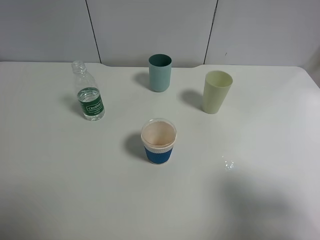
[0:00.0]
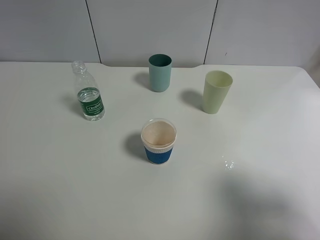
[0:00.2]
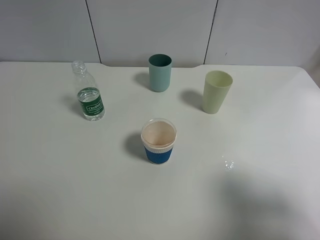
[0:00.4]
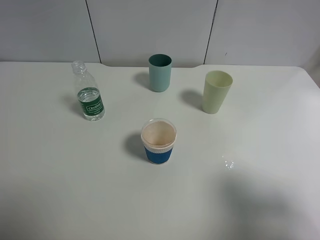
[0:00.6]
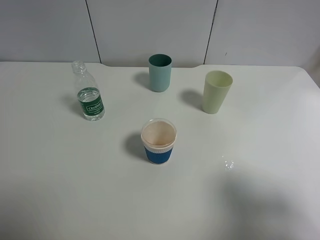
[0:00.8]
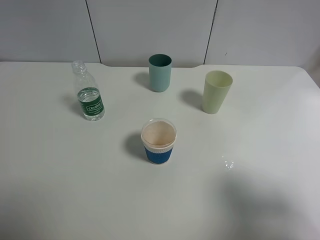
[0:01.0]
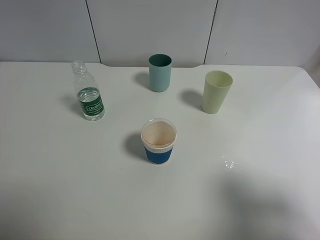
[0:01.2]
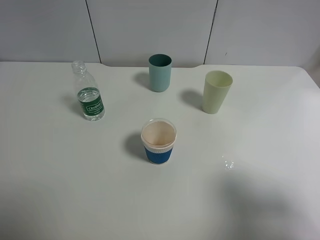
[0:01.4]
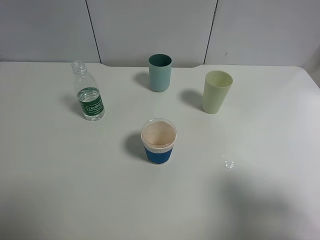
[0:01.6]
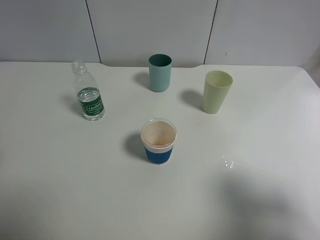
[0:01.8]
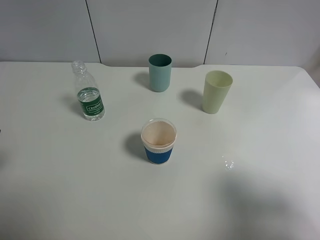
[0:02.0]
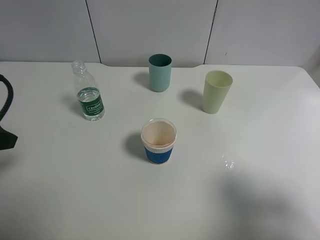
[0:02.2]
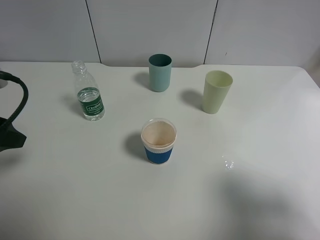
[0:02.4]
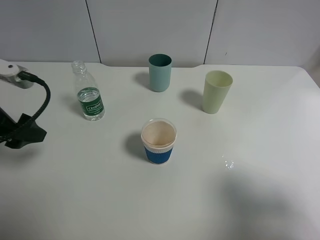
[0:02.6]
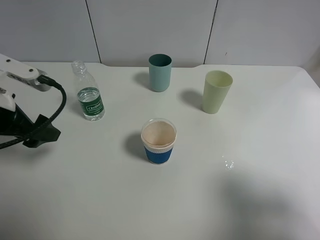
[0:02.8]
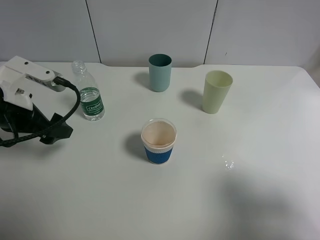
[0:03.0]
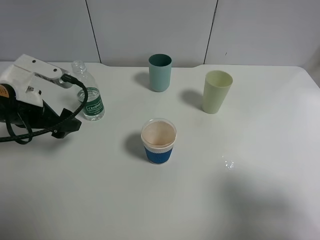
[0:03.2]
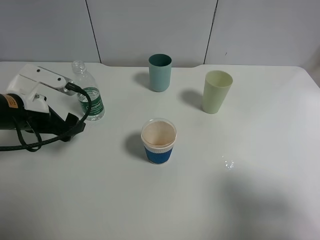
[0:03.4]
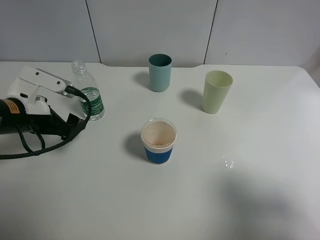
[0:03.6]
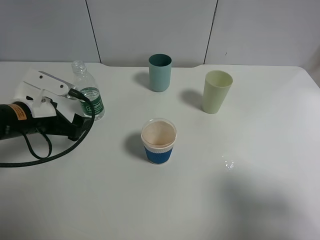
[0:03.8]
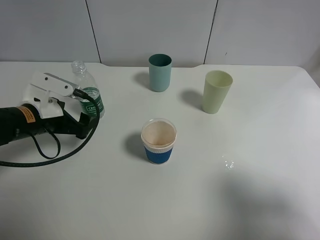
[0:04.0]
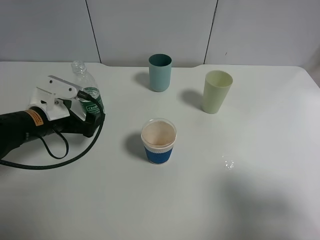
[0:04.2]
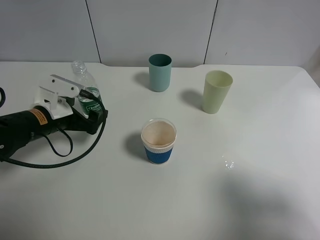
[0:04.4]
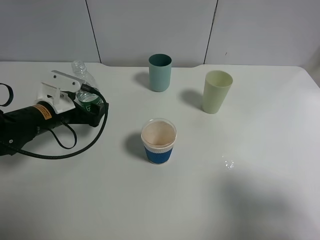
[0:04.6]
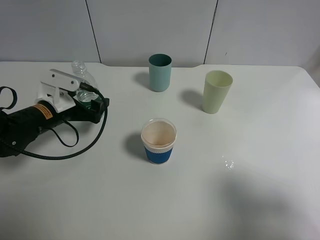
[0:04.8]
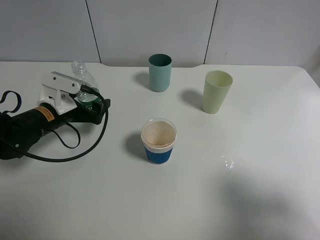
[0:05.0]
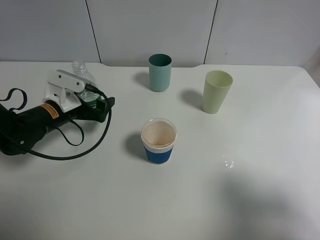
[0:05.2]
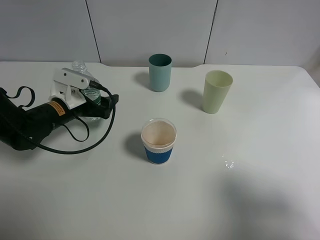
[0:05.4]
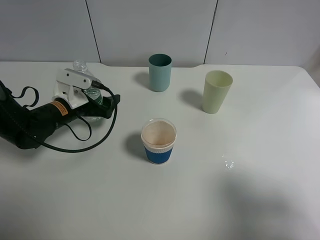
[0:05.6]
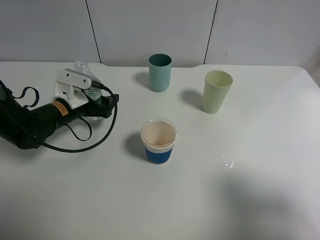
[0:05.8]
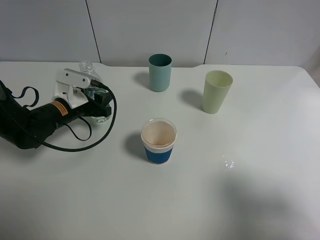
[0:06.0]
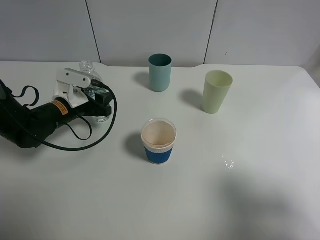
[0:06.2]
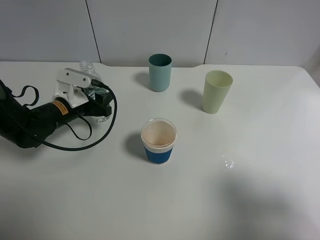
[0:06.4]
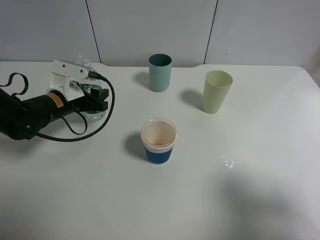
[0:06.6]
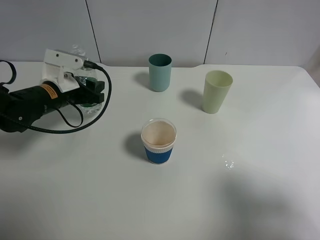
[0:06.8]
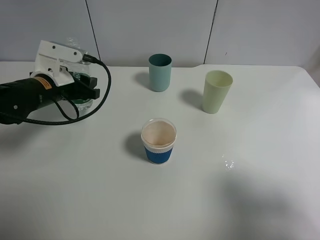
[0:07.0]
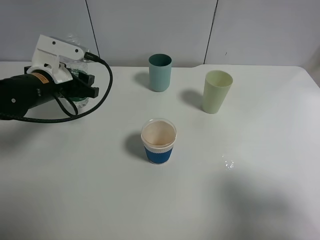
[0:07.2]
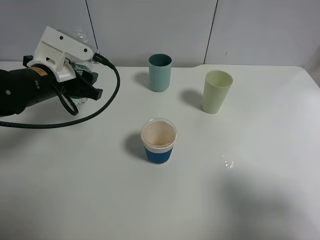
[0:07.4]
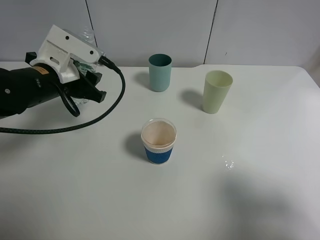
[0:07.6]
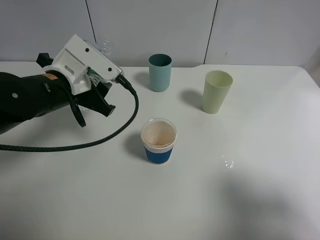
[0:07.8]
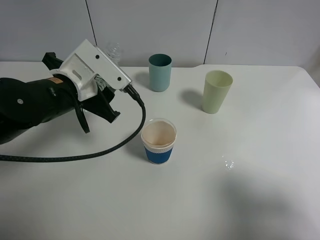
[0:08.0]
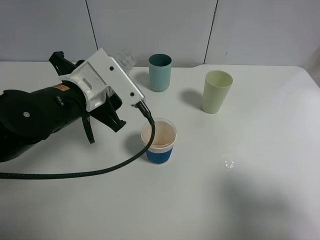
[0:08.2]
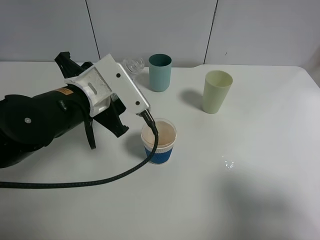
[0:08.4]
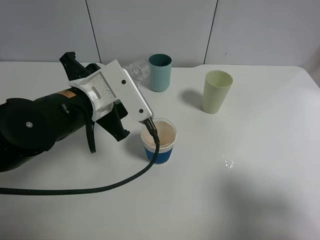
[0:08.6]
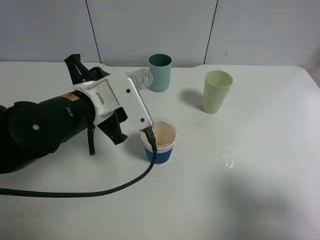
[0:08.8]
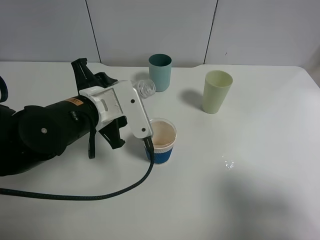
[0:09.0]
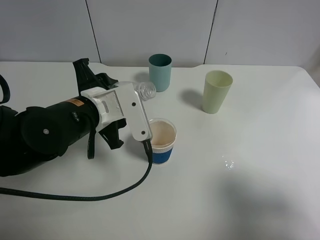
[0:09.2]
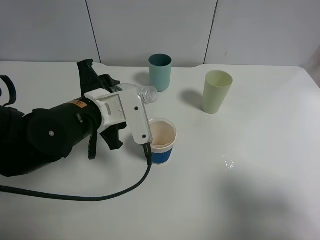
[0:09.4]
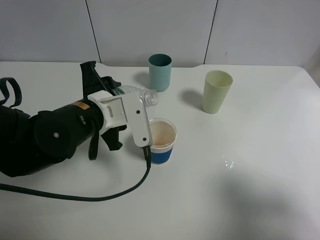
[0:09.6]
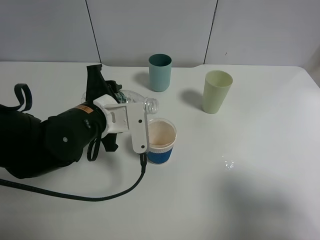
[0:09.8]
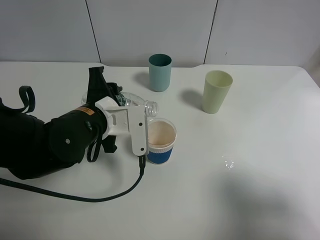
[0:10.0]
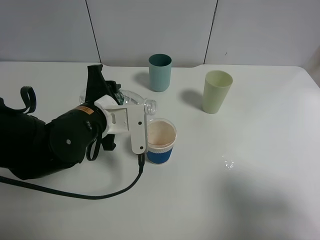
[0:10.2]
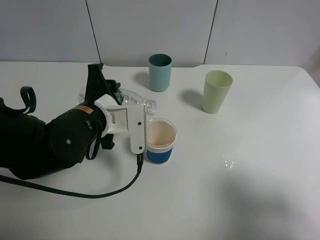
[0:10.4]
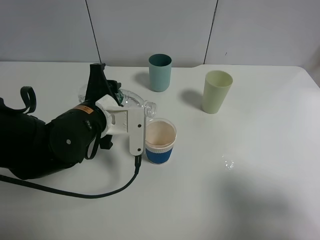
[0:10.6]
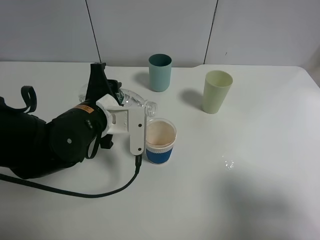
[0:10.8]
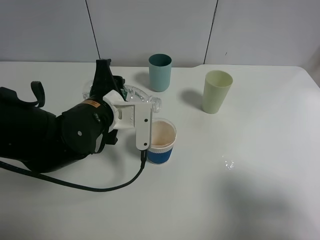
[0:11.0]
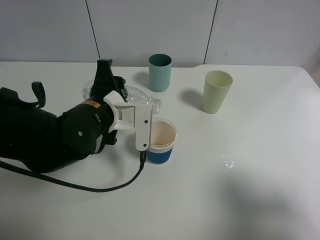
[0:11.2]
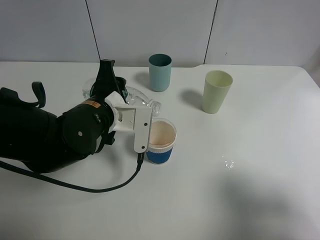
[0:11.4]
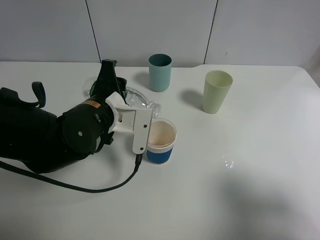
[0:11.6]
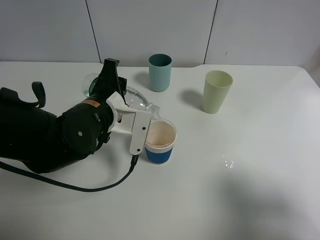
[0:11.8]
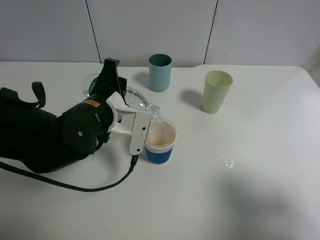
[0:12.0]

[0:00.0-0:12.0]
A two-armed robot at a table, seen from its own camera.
Task of the whole recording: use a clamp to hold the bottle of the drink, pour the beverage into a random cup, then clamp the cup containing the drink and pour the drink into another random cup.
Step, 0:00.0 to 0:06.4: Pick up the water bottle with left gripper.
0:01.6 to 0:03.0: The left gripper shifts approximately 20 cm forward and downward.
0:03.0 to 0:04.4: The left gripper goes some 10 cm downward.
0:04.4 to 0:06.0: The left gripper goes roughly 5 cm forward.
0:06.0 to 0:07.6: The left gripper shifts approximately 10 cm upward, and closes its fingers.
0:07.6 to 0:09.0: The left gripper moves to the right and backward, about 10 cm.
0:10.4 to 0:12.0: The grippers move only a little.

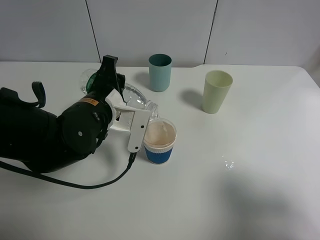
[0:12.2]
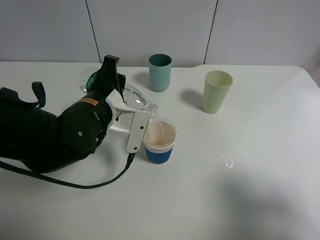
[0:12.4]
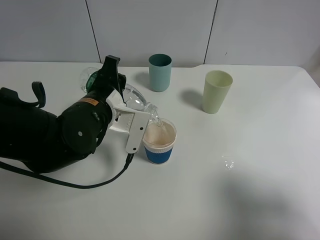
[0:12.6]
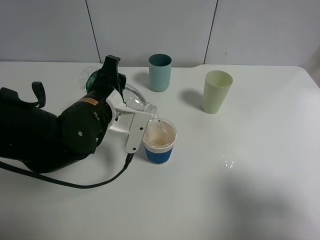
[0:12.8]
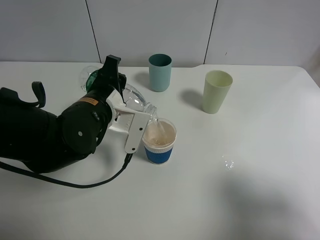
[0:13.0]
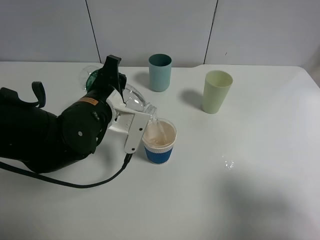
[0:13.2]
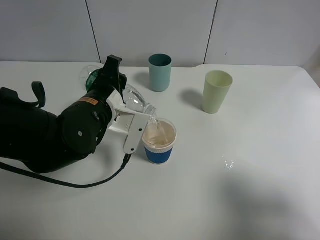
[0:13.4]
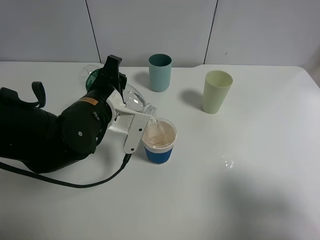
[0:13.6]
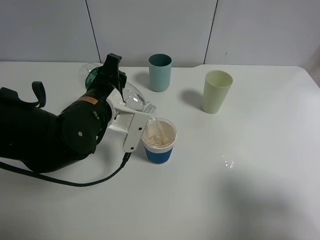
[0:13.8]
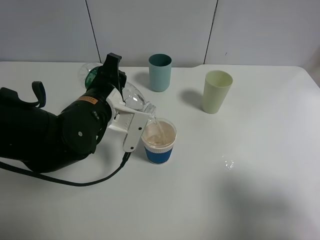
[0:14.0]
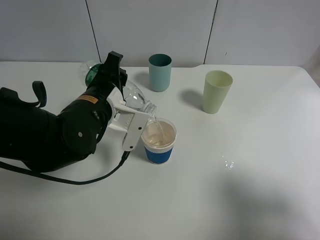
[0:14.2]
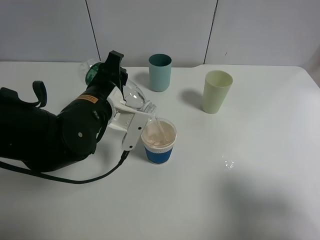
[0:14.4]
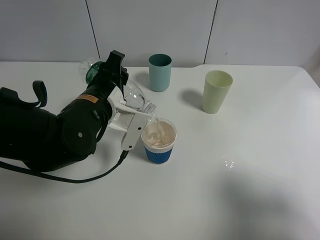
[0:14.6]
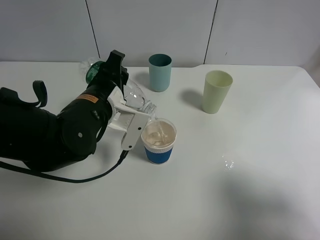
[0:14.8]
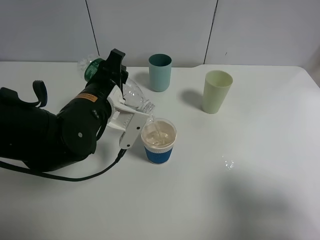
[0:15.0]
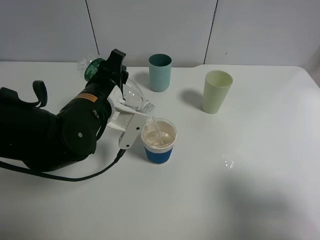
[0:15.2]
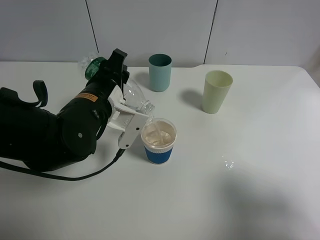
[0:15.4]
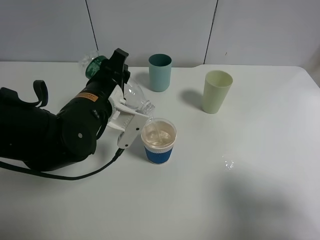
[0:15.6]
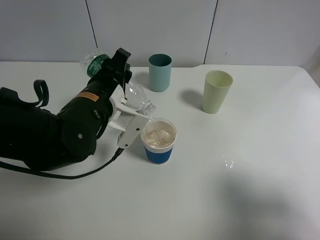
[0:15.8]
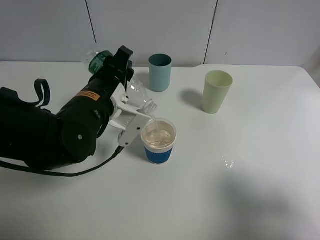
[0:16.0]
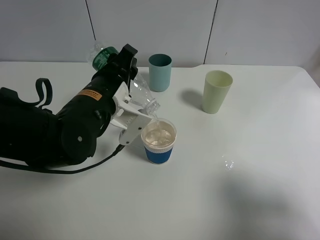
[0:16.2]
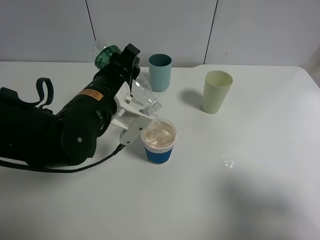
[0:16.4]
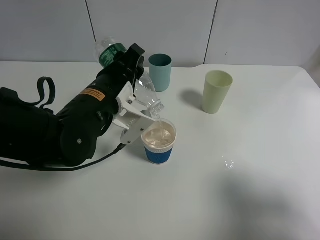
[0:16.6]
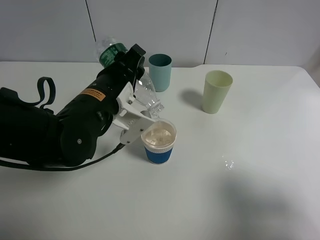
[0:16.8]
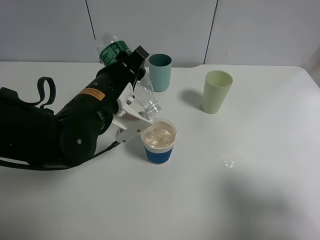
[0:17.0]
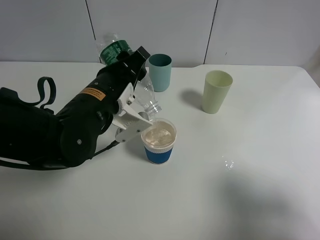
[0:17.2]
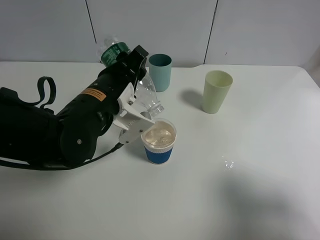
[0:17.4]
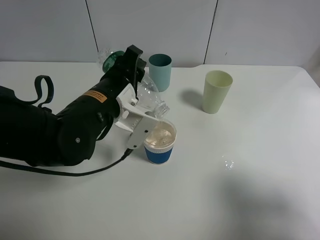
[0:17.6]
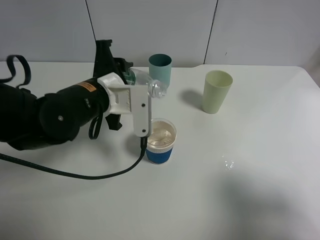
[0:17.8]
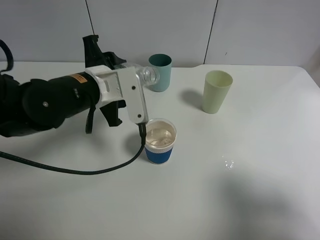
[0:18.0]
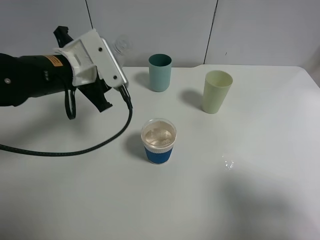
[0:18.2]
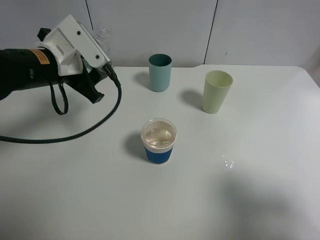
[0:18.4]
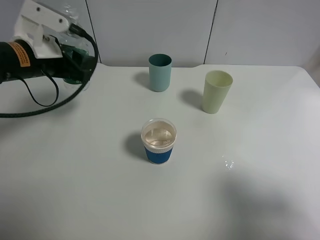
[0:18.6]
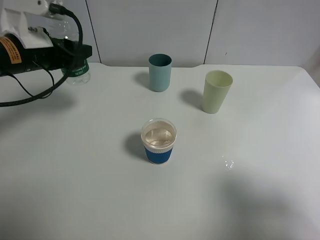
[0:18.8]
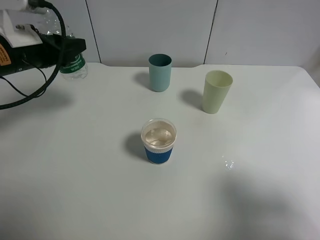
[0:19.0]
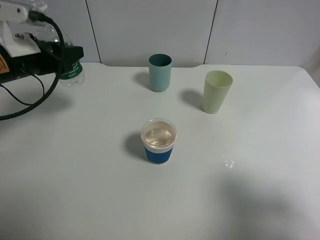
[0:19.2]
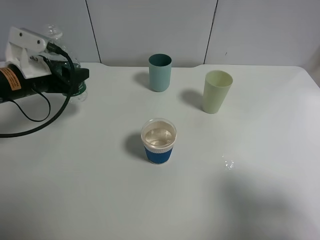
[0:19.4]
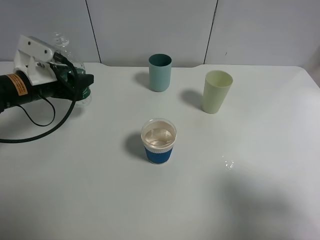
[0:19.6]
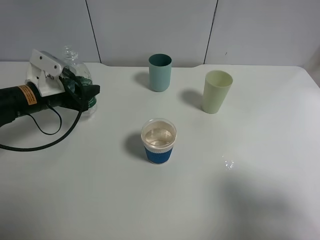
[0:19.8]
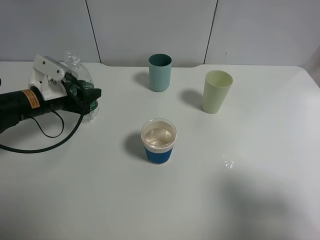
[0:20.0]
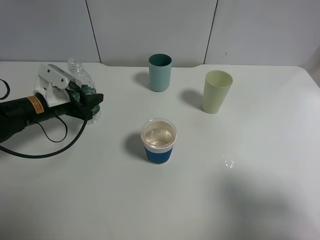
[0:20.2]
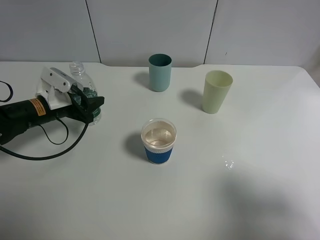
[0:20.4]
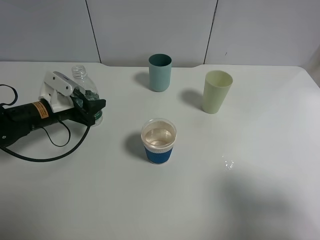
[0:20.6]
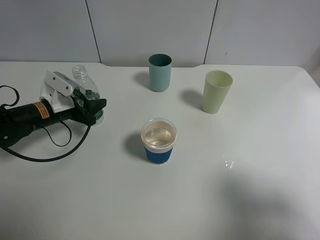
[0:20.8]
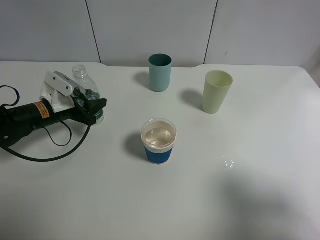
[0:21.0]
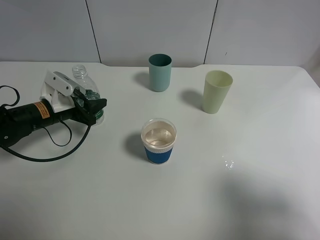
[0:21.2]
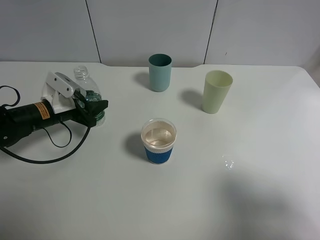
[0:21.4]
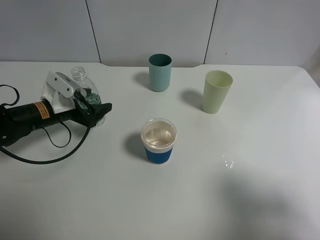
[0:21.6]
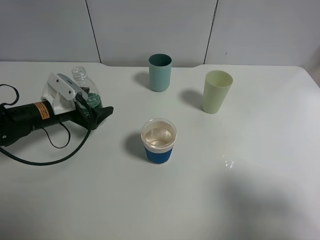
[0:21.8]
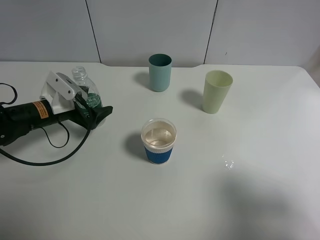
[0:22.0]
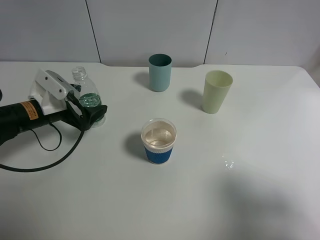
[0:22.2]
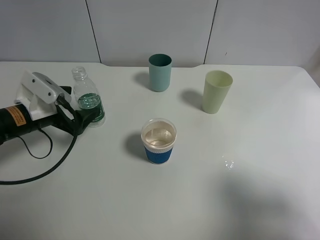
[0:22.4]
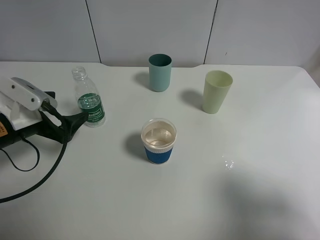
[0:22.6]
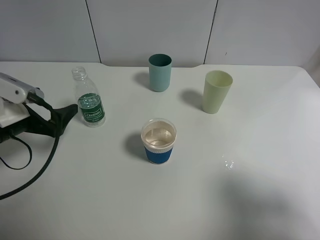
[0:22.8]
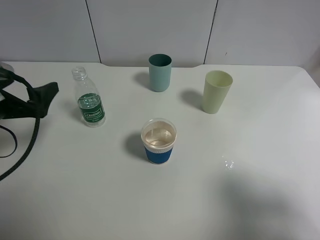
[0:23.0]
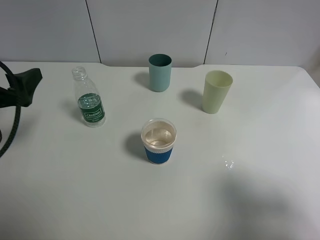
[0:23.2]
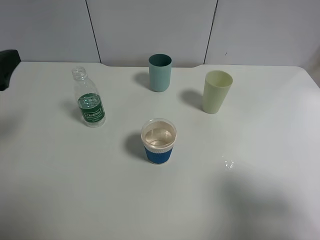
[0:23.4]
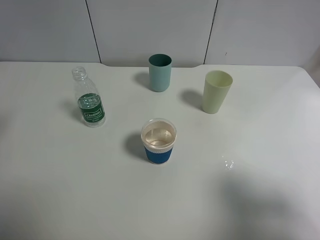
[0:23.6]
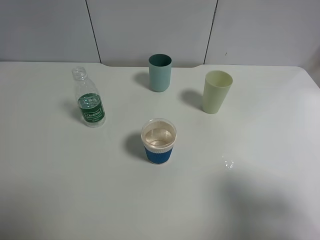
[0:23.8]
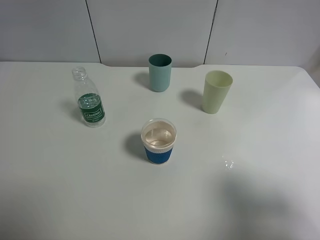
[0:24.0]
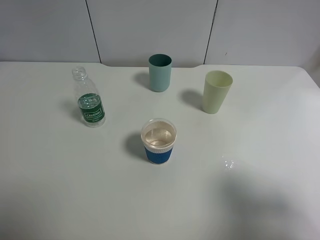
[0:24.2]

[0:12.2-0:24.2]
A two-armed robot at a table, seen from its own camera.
Task of the whole recording: use a clamp to hold the bottle of the drink, pour the beverage into a random cup, then clamp the cup containing the drink and pour the drink into another random cup.
Step, 0:12.2 to 0:17.8: Pour the water into the blue plastic cup with left gripper.
Step, 0:18.0 to 0:21.6: Place the water bottle on the table with left gripper.
0:12.2 to 0:15.2: The grippers move only a little.
0:15.2 to 0:16.6: There are only small adjustments of the grippers.
0:16.6 to 0:18.2: The left gripper changes place by some 5 cm.
0:18.2 to 0:19.8: The left gripper moves to the left and downward, roughly 15 cm.
0:19.8 to 0:21.2: The left gripper heads downward, covering approximately 5 cm.
0:21.2 to 0:22.6: The left gripper is displaced backward and upward by some 10 cm, and opens its fingers.
0:22.6 to 0:24.2: The left gripper moves upward and backward, some 25 cm.
